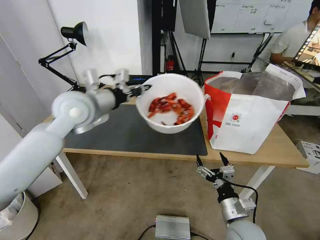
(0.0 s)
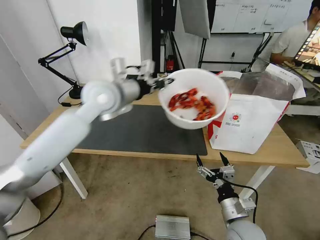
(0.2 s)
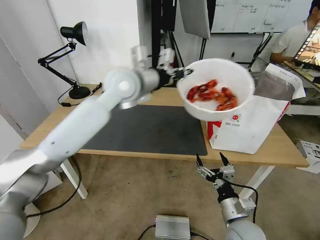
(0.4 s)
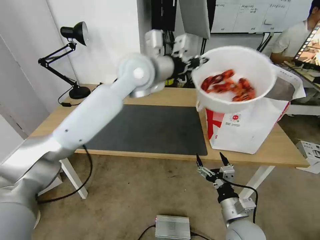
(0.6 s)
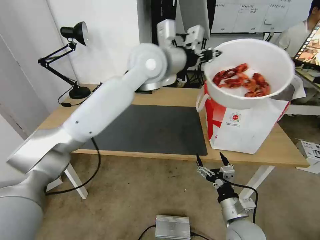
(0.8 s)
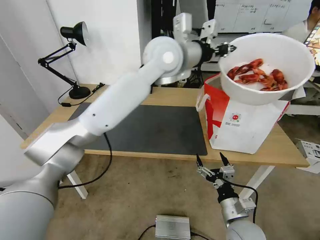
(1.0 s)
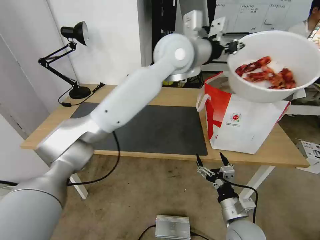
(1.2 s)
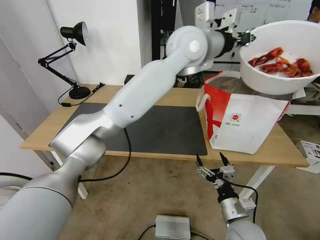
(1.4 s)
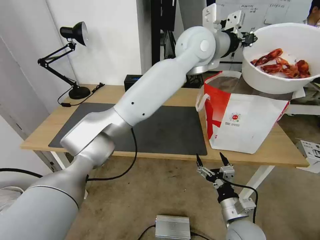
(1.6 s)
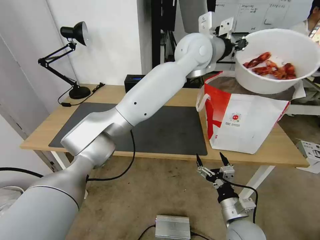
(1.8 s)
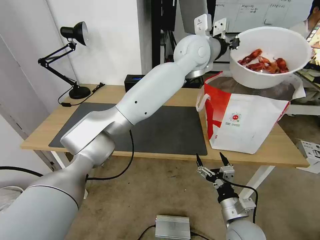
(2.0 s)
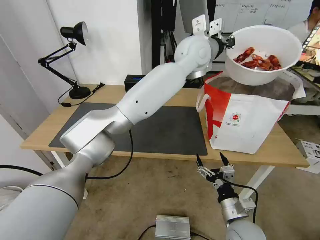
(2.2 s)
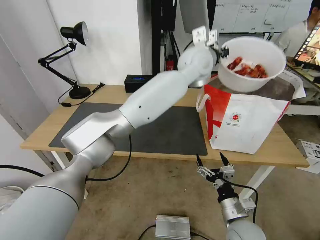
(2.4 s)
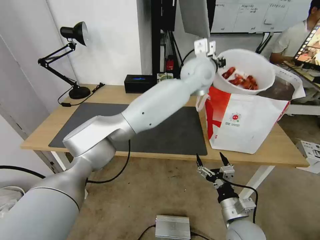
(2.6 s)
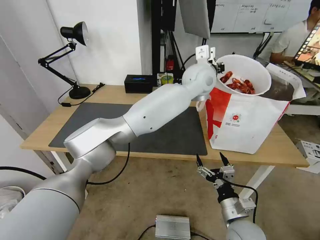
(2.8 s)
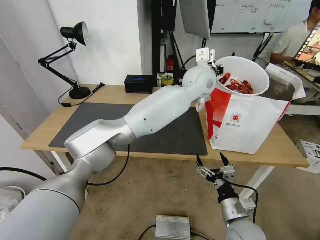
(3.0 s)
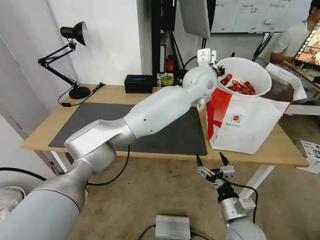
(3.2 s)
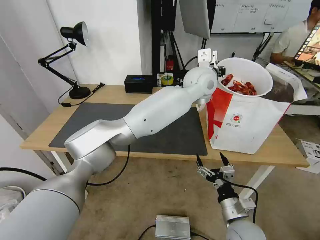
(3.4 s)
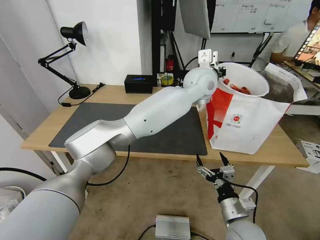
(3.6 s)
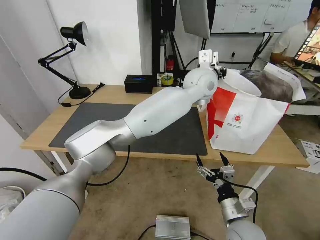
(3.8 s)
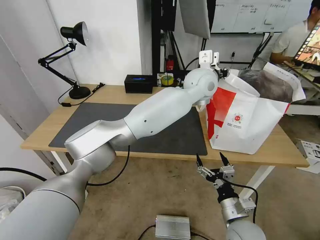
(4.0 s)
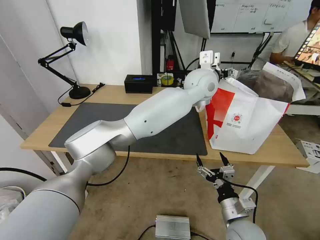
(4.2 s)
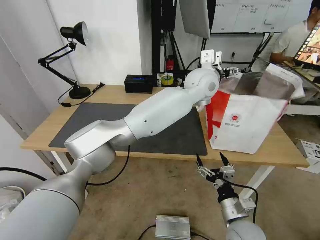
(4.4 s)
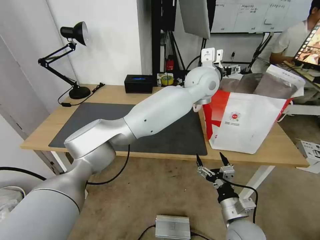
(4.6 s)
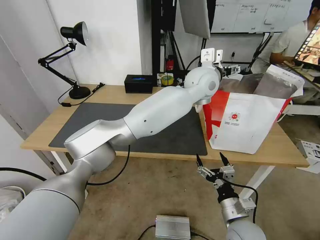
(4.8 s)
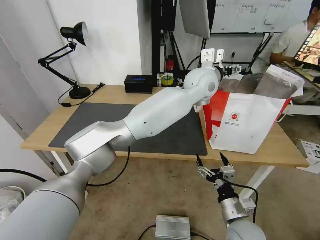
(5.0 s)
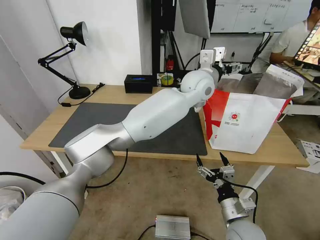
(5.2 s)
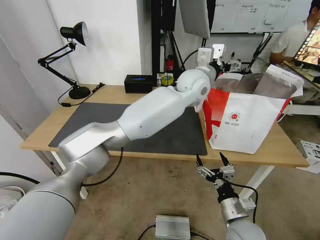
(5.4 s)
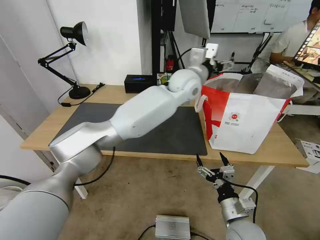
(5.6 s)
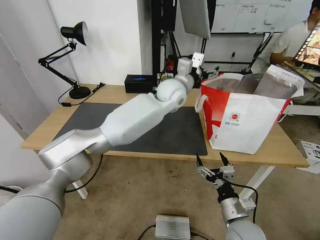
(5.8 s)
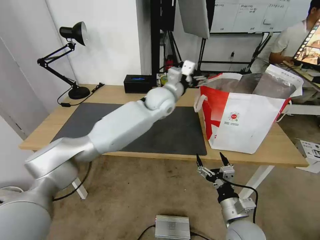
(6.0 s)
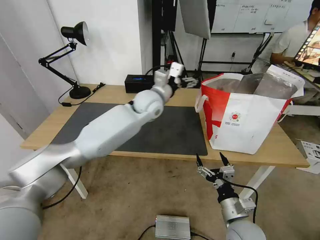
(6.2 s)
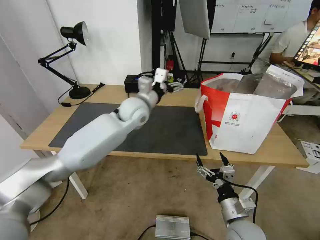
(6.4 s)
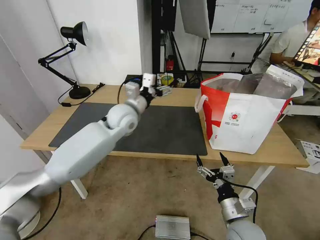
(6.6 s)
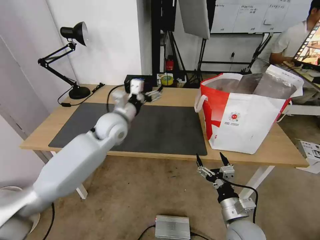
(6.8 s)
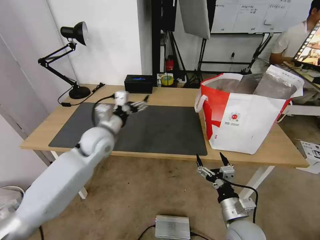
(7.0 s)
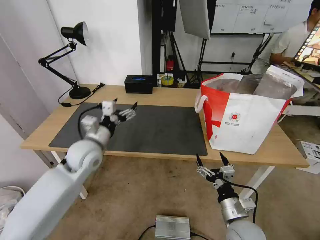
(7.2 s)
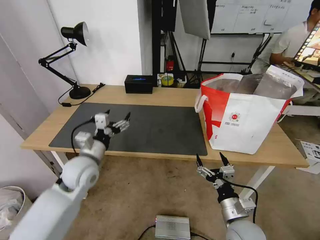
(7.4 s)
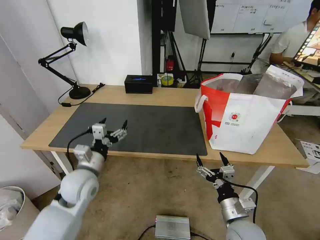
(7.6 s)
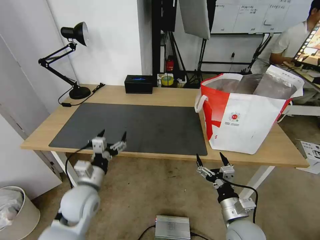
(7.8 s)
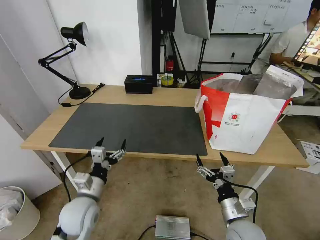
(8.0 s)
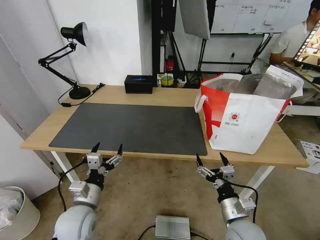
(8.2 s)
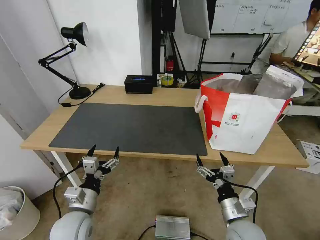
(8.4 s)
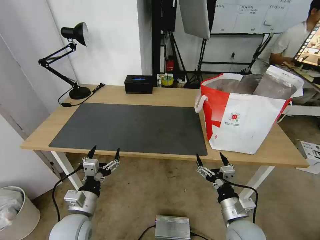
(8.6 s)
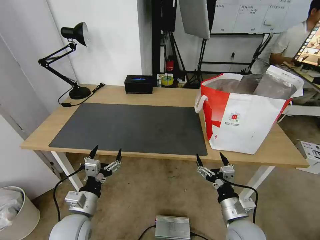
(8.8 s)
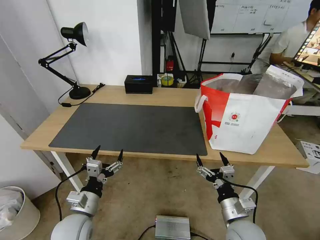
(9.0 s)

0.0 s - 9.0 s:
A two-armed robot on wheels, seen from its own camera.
Task of the whole recording: Pick up the trash from the table and place it into the takeout bag.
0.0 s - 1.6 s: The left gripper goes some 30 cm to the right.
1.6 s - 3.0 s: The left gripper travels downward by approximately 10 cm.
3.0 s - 4.4 s: The left gripper opens.
4.4 s - 6.0 s: The left gripper travels to the left and downward by about 15 cm.
6.0 s - 7.6 s: The left gripper goes roughly 35 cm to the left, backward and downward.
7.6 s - 9.0 s: The left gripper travels backward and downward by roughly 10 cm.

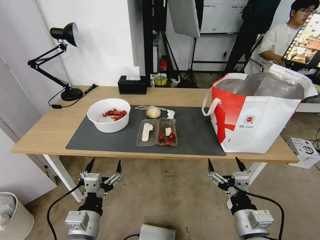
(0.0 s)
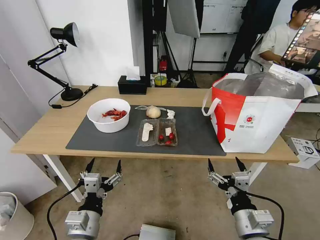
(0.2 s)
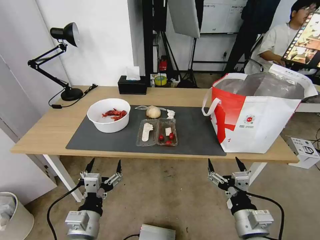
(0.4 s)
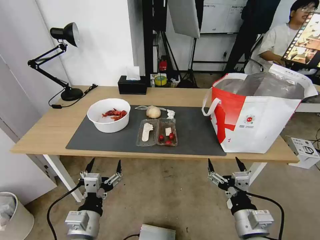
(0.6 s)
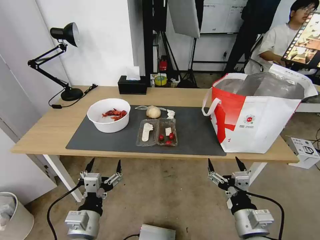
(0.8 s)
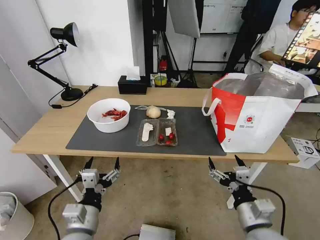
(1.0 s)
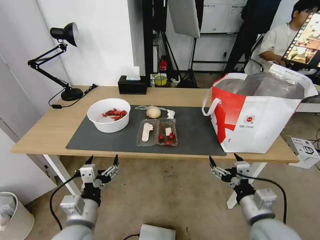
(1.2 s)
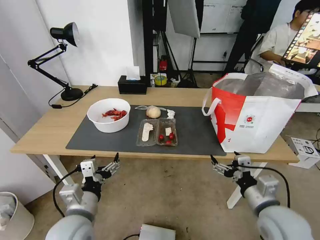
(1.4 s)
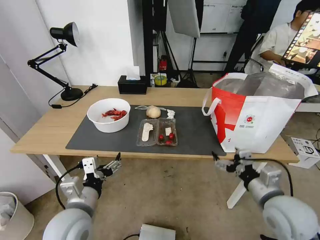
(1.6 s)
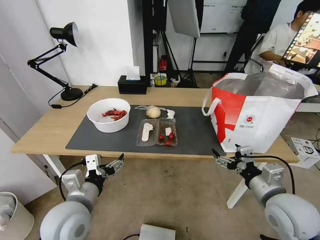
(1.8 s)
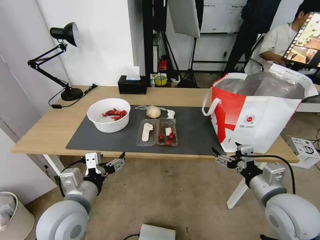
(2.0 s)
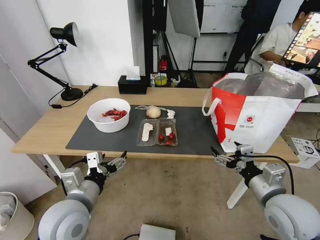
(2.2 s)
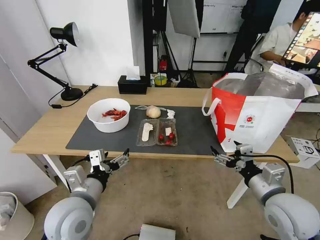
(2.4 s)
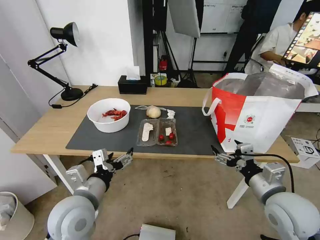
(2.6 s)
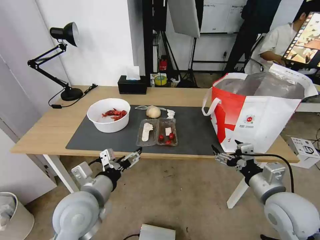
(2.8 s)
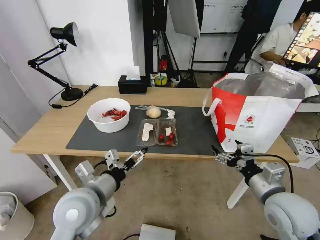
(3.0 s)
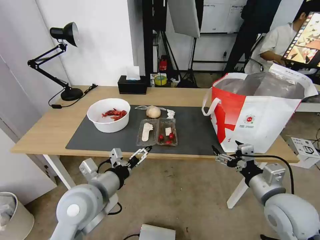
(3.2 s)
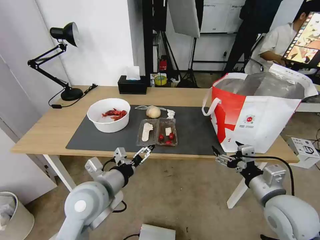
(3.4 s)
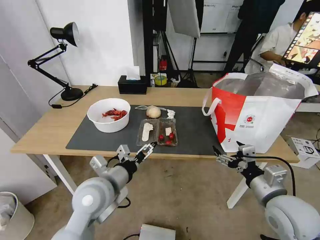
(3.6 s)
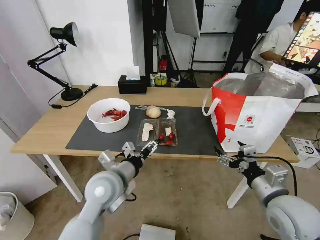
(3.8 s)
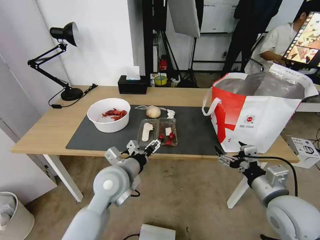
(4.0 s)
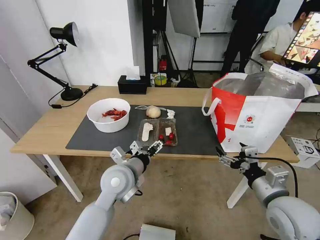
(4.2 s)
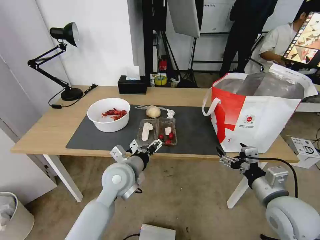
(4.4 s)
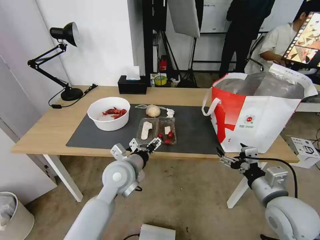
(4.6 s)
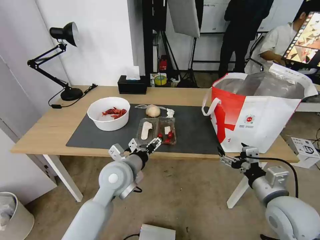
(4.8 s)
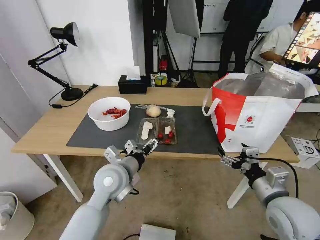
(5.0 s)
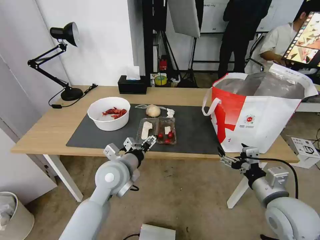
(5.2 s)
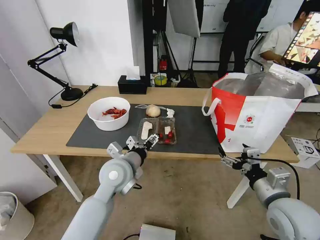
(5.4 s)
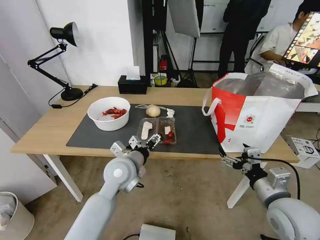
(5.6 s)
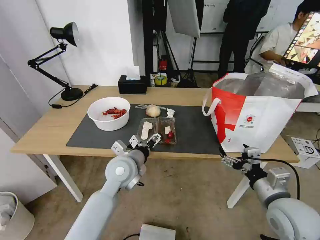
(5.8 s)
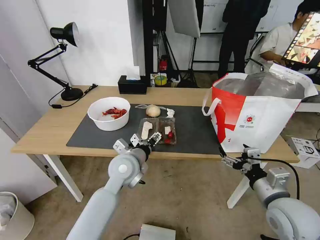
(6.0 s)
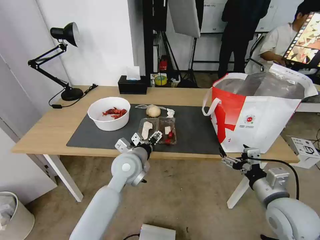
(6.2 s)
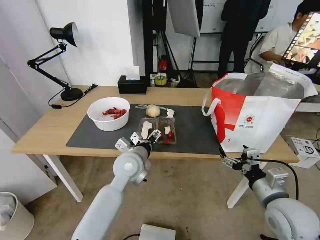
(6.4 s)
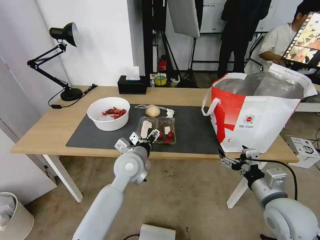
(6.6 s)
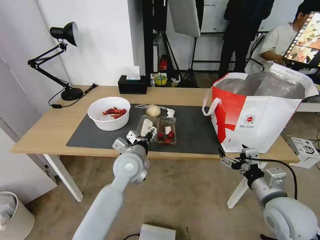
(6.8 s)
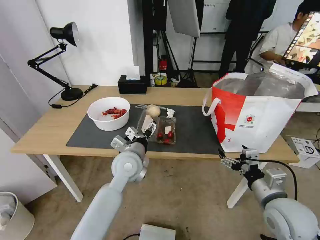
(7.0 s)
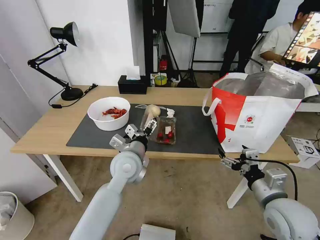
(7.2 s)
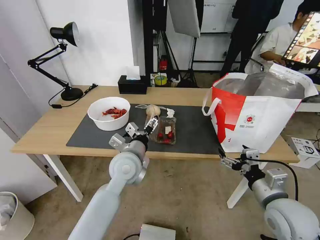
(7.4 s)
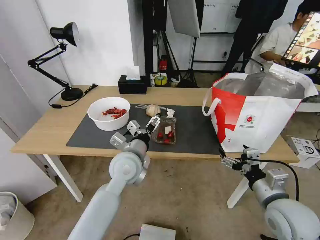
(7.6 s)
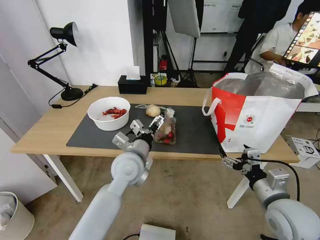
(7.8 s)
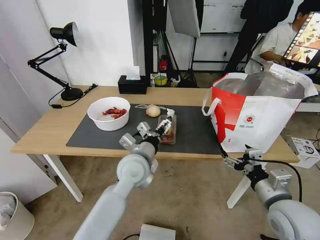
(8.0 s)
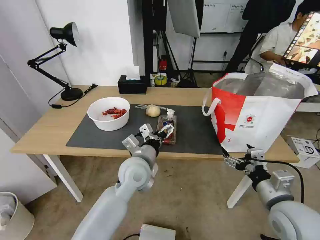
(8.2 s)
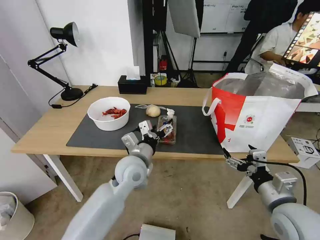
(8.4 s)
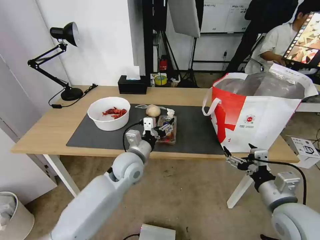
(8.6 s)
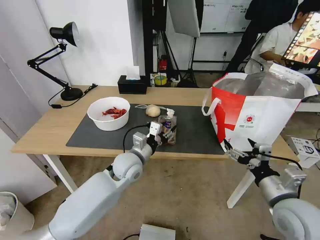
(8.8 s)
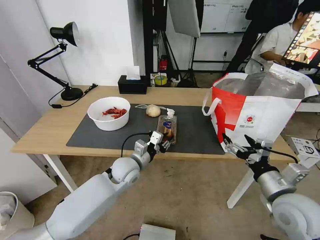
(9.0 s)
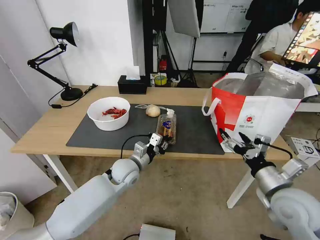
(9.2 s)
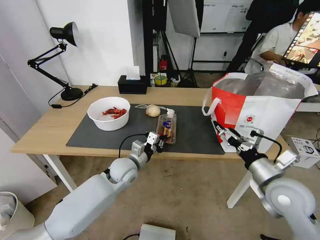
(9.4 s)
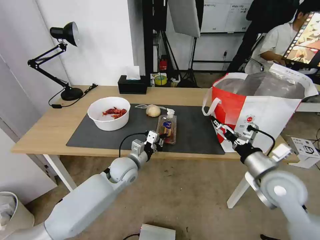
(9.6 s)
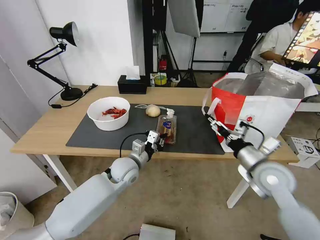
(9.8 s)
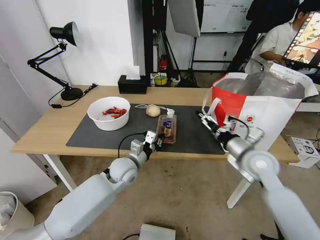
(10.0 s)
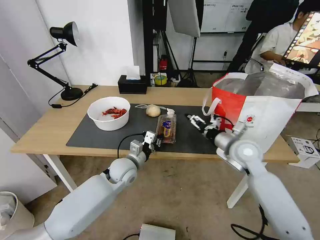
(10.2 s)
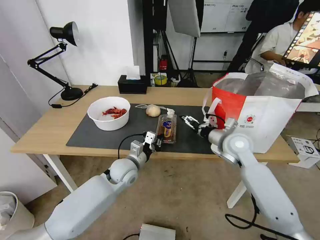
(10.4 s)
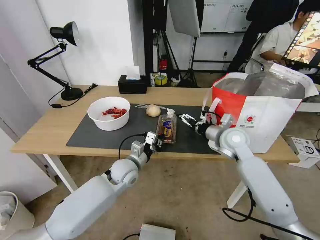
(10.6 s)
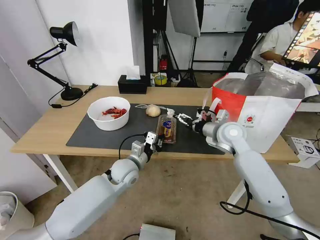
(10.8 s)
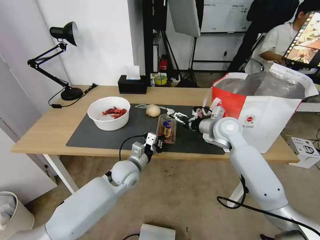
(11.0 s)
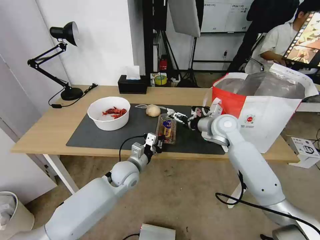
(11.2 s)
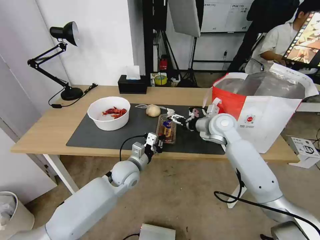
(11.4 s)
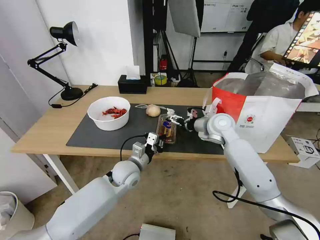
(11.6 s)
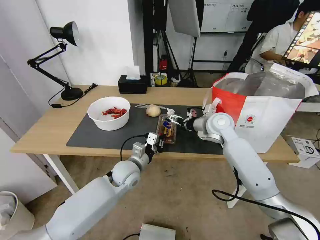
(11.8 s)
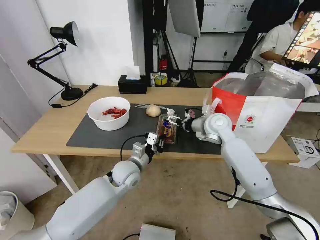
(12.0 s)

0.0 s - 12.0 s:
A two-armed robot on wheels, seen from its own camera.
Task of the whole recording: Pick up the trash from the table and place it into the takeout bag.
3.0 s - 4.4 s: The left gripper heads forward and to the right, covering approximately 10 cm.
4.4 s - 7.6 s: There are only small adjustments of the grippers.
7.6 s - 9.0 s: The left gripper goes some 10 cm downward, and closes up.
9.0 s - 10.4 s: The right gripper goes about 20 cm forward.
10.4 s - 12.0 s: The right gripper goes some 10 cm forward and to the left.

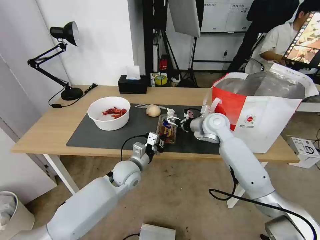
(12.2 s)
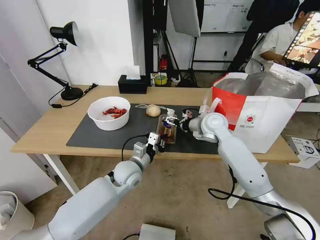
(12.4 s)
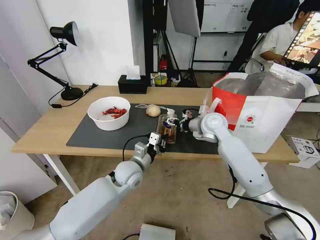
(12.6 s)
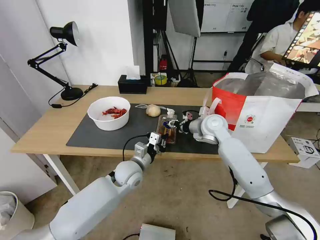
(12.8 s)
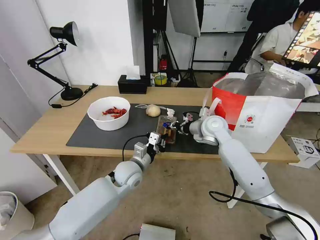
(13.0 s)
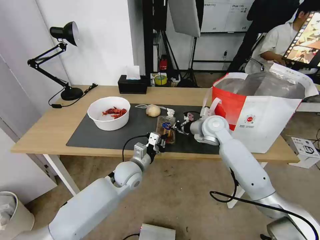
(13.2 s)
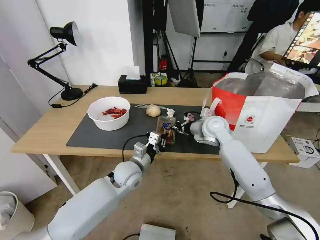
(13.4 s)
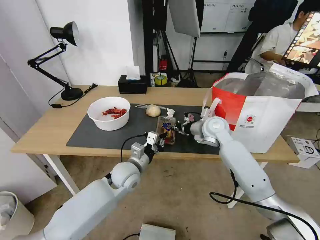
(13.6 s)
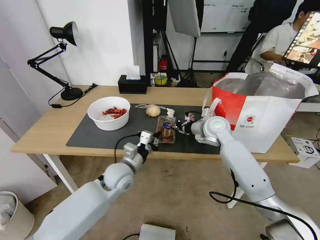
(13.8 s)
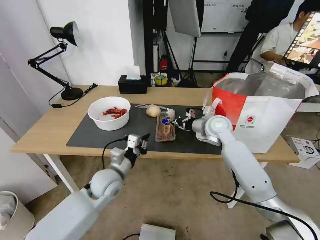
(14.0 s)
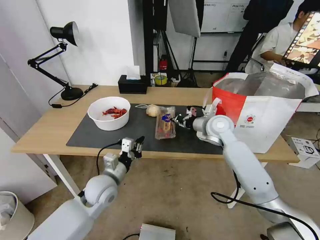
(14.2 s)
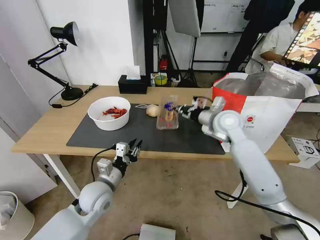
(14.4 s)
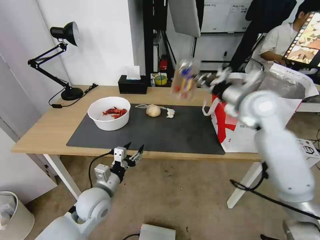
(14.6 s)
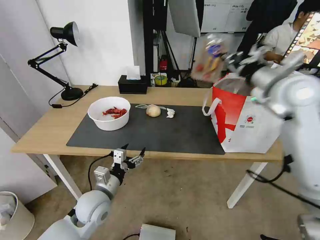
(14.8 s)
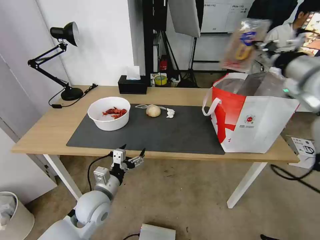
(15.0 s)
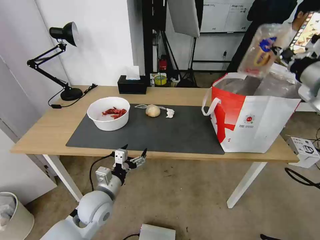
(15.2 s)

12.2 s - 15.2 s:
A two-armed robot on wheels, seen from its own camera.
Task of the whole recording: Pick up the trash from the table and place it into the takeout bag.
12.2 s - 13.8 s: The right gripper closes.
13.8 s - 15.2 s: The right gripper shifts some 30 cm to the right, upward and backward. Meanwhile the left gripper heads backward and to the left, covering roughly 10 cm, and opens.
